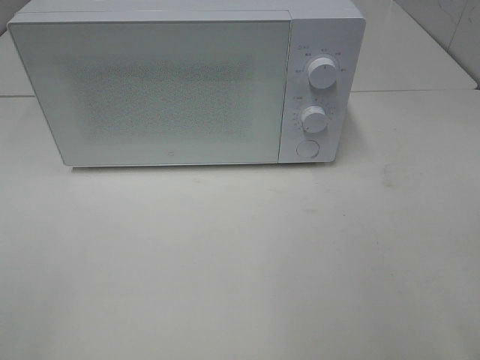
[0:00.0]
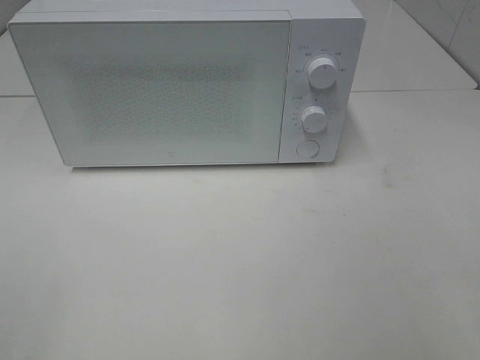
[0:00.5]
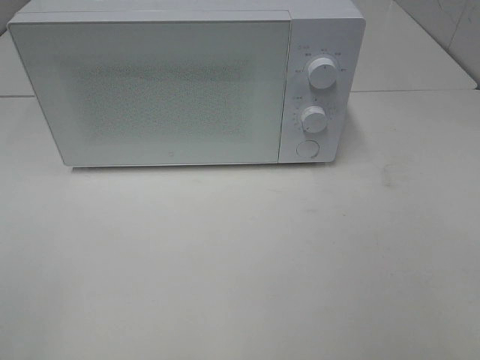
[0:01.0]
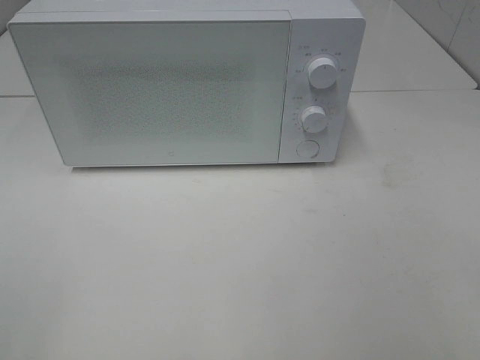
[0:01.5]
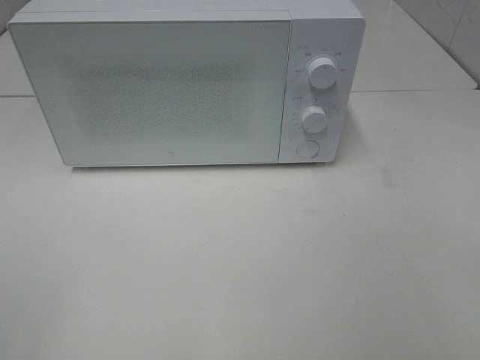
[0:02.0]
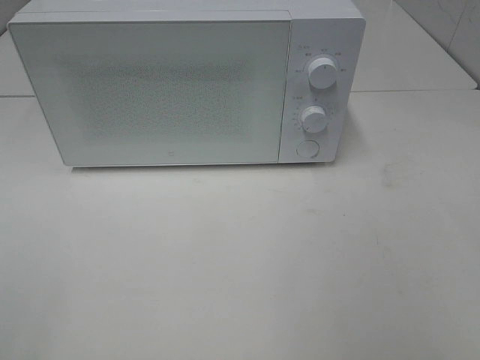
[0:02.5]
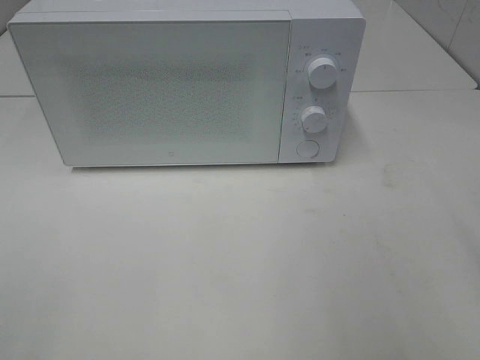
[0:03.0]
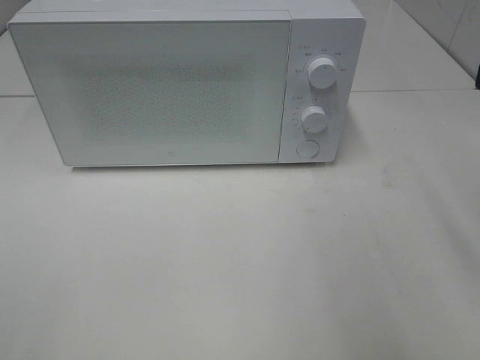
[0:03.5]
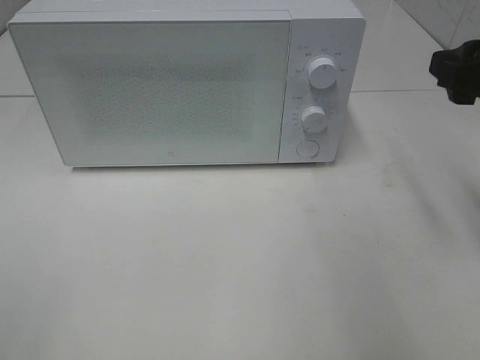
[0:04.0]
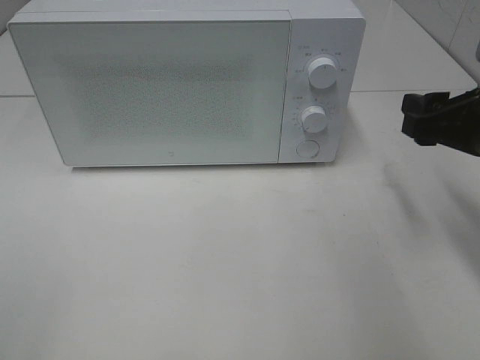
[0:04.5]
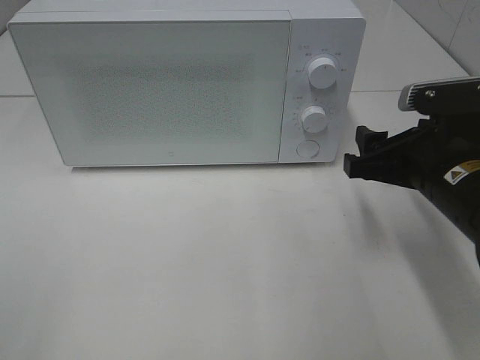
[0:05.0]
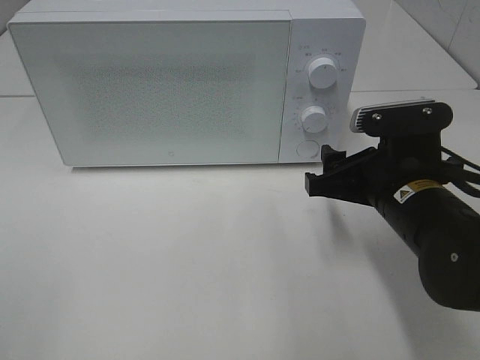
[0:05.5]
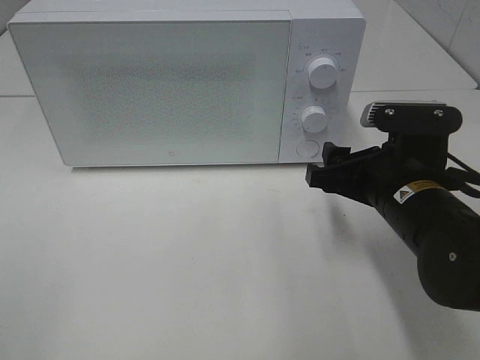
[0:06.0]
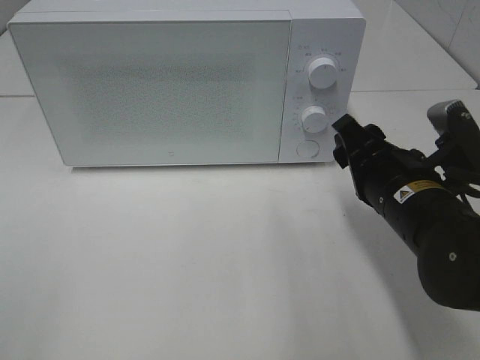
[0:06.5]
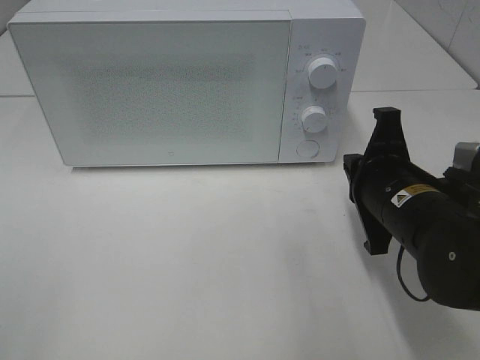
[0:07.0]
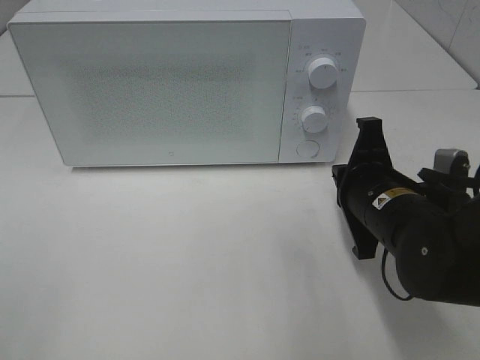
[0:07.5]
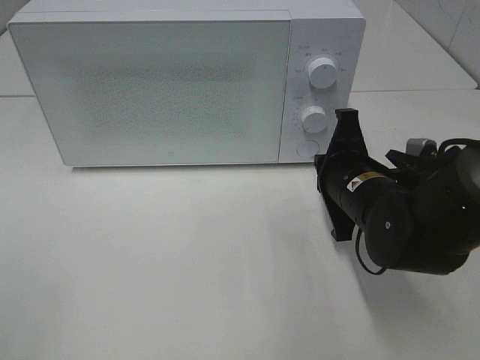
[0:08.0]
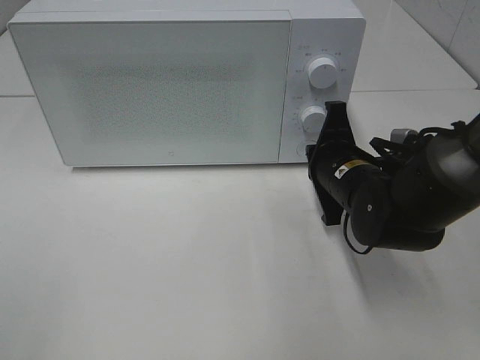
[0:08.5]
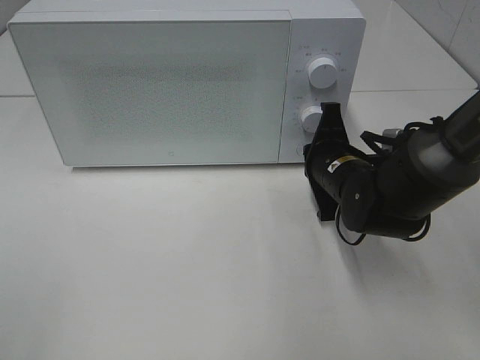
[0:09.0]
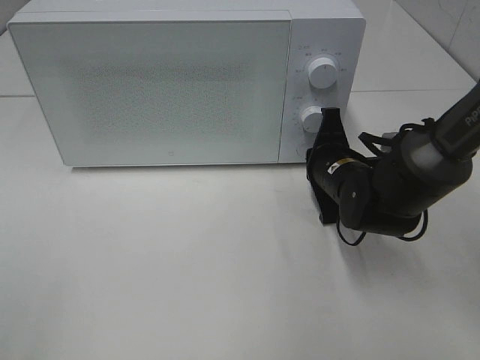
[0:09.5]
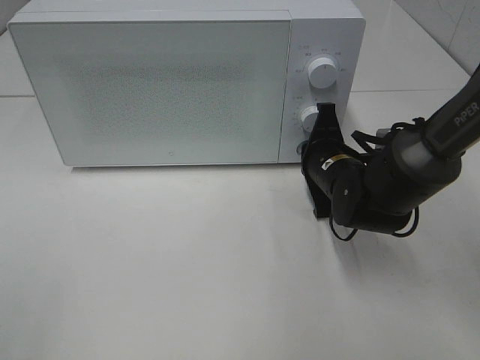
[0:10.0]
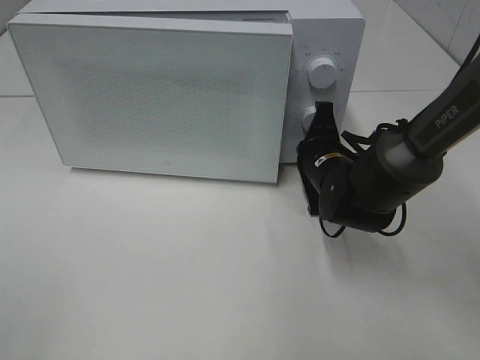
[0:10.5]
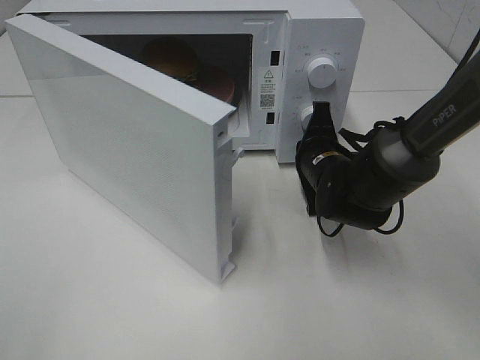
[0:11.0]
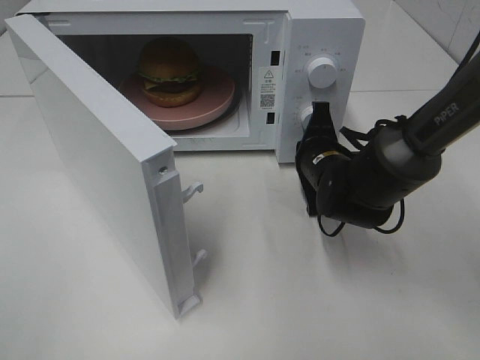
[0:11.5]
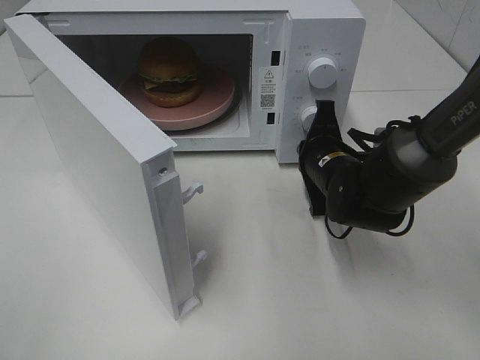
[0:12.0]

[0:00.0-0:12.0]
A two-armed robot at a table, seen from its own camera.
Task of the whole recording: Heat the burger.
0:02.0 to 0:04.0: The right gripper goes about 25 cm forward.
0:04.0 to 0:06.0: The right gripper is displaced downward and to the left by roughly 15 cm.
0:06.0 to 0:08.0: The right gripper shifts by approximately 5 cm, and closes its fingers.
0:08.0 to 0:10.0: The right gripper heads forward, covering roughly 5 cm.

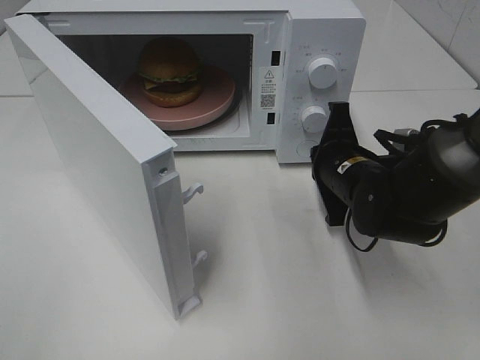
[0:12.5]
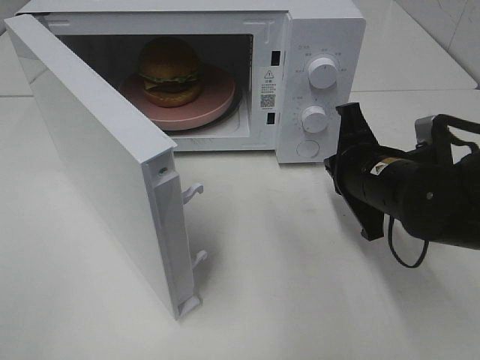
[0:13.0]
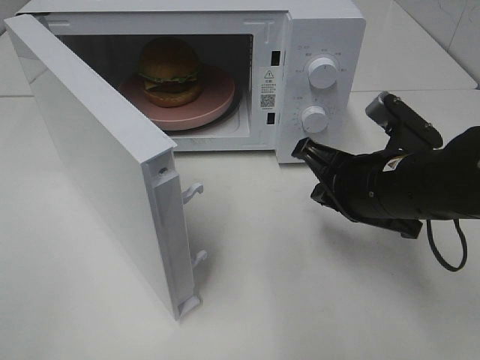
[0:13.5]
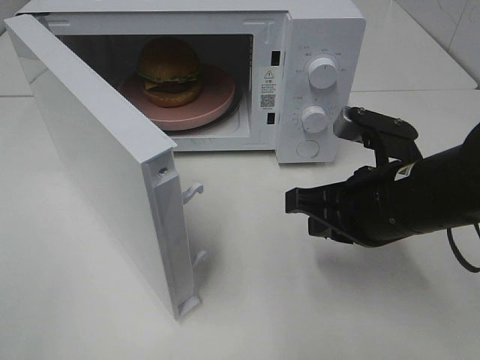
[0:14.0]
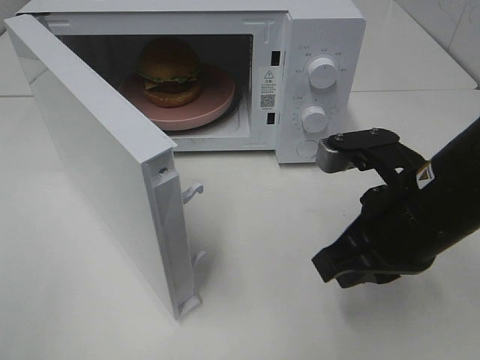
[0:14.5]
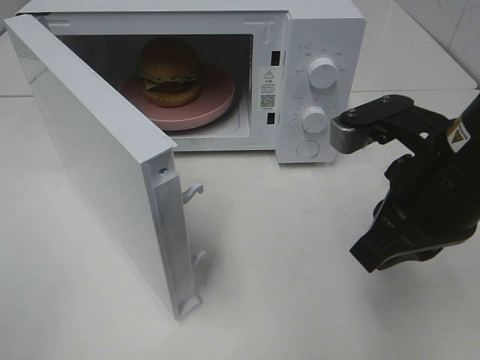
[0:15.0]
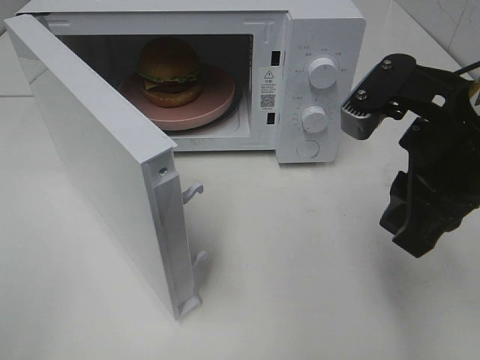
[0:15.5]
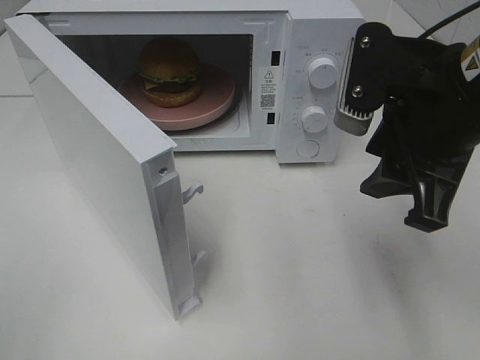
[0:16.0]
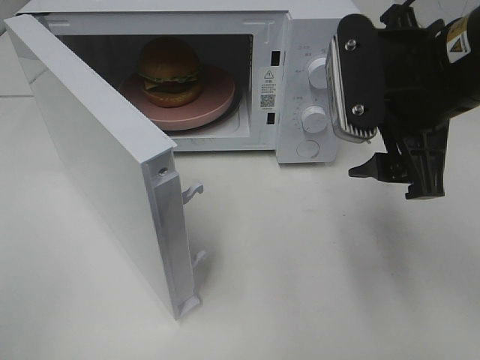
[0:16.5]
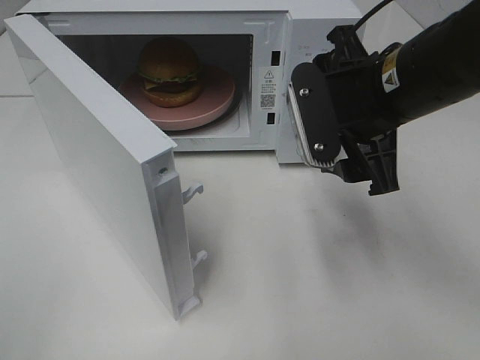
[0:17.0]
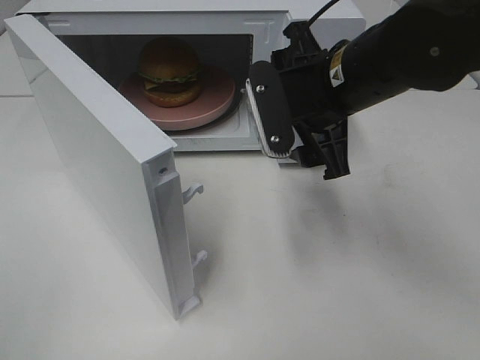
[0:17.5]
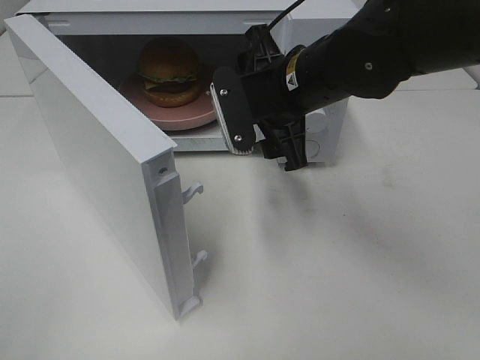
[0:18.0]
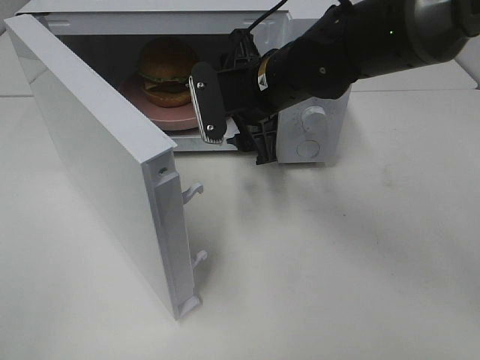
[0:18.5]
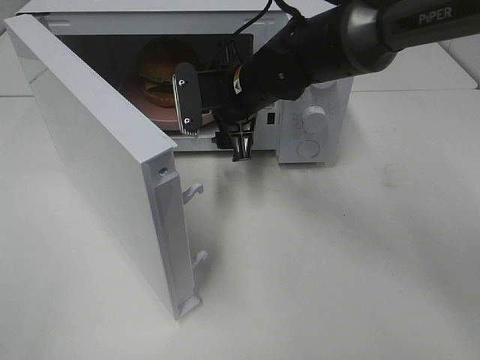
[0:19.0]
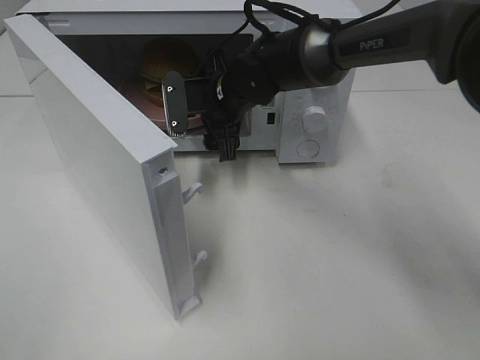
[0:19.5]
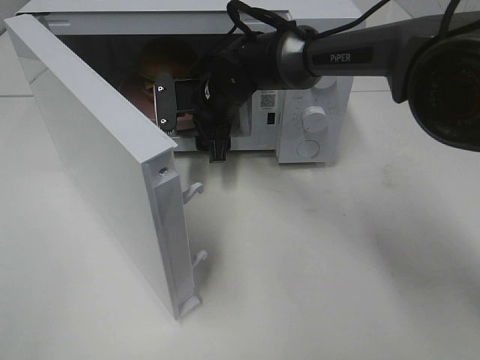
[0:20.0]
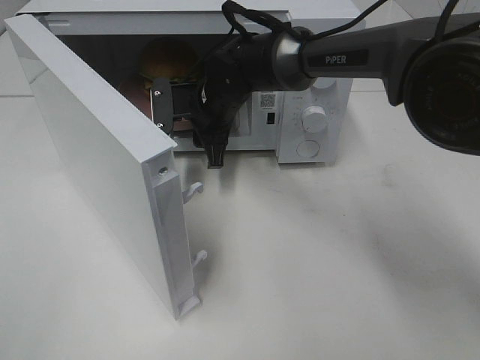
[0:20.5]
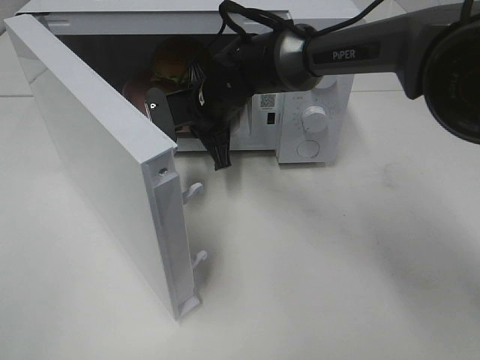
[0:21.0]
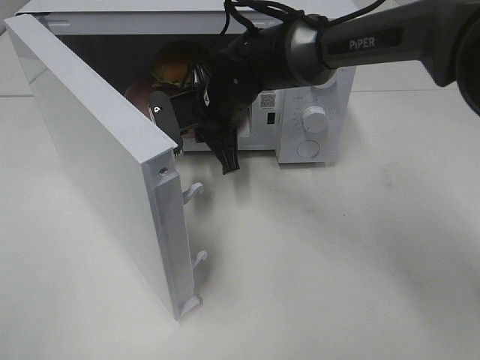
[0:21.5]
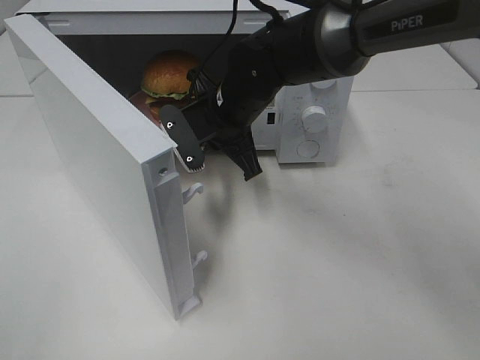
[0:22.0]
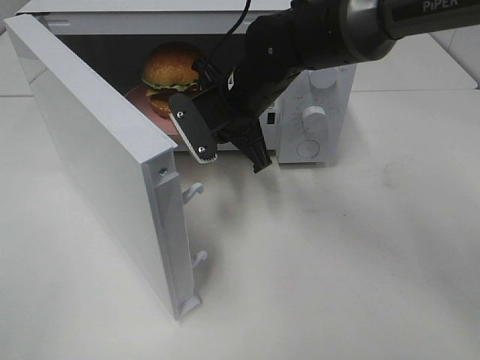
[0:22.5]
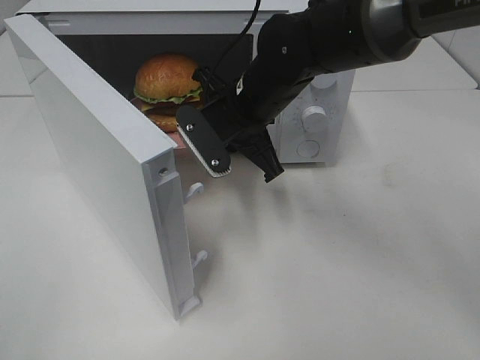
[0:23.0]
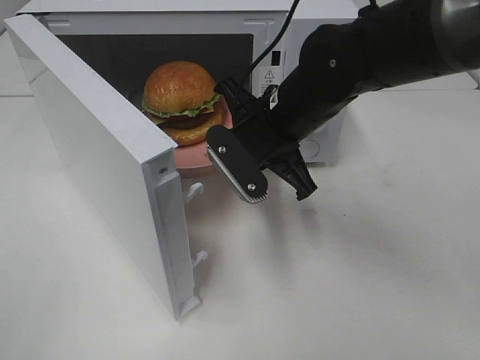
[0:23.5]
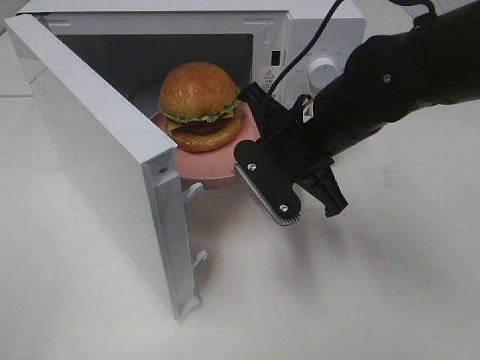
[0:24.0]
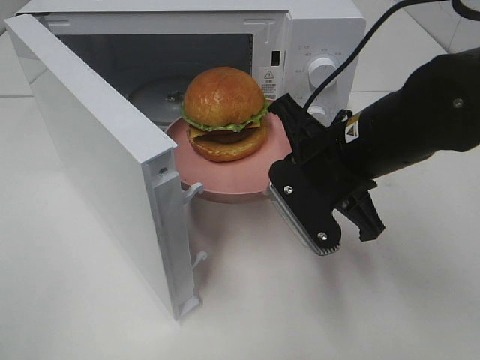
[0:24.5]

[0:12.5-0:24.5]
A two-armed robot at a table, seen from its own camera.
Task of the whole recording: Heat the burger.
Step, 0:12.5 to 0:20.5: Right hand: grab the plate with the hamburger.
0:12.5 to 0:14.5: The right gripper goes roughly 15 cm backward and upward.
0:14.5 to 0:16.5: The right gripper goes approximately 10 cm upward, and opens up.
0:16.5 to 0:18.5: The right gripper goes about 20 cm forward, to the left and downward.
0:18.5 to 0:20.5: The right gripper heads forward, downward and to the left, covering roughly 10 cm, and closes up.
0:20.5 to 0:22.5: The right gripper goes about 5 cm backward, and closes.
0:22.5 to 0:24.5: The right gripper goes approximately 15 cm backward and to the right.

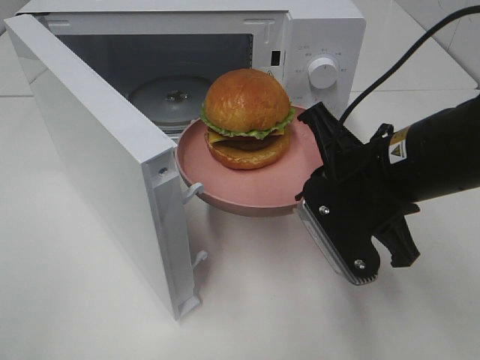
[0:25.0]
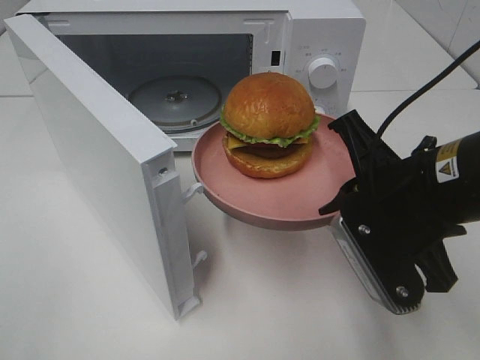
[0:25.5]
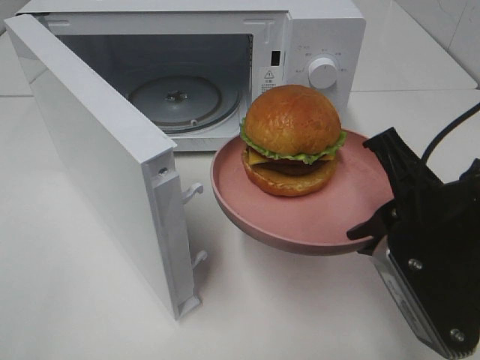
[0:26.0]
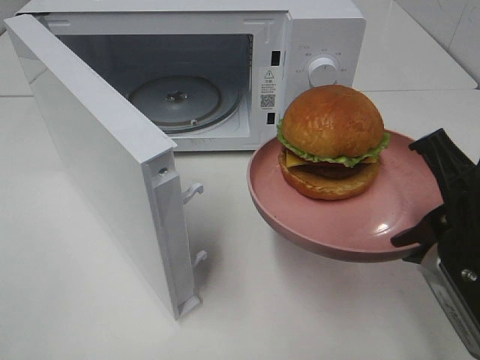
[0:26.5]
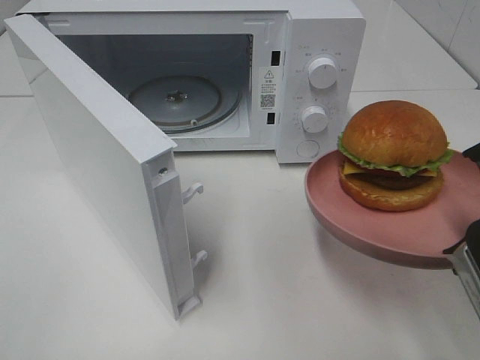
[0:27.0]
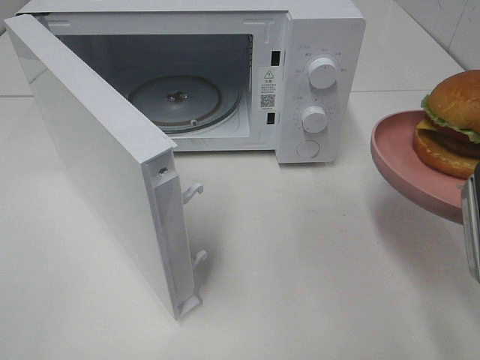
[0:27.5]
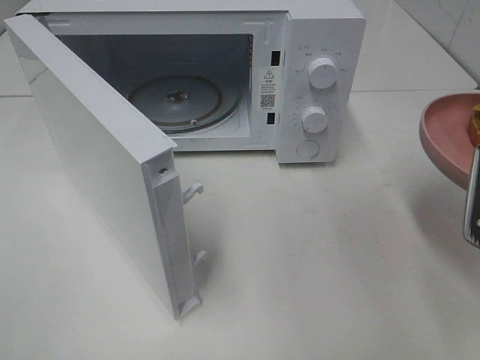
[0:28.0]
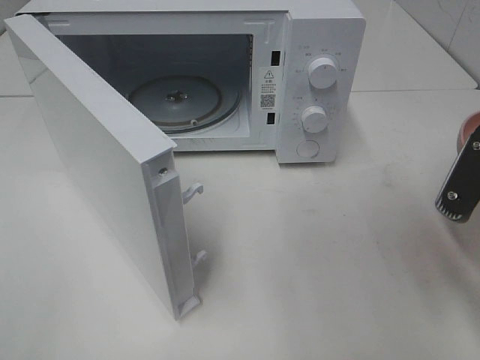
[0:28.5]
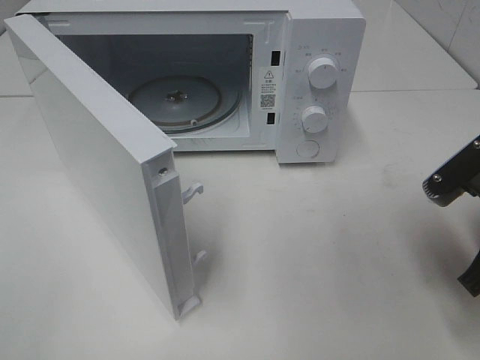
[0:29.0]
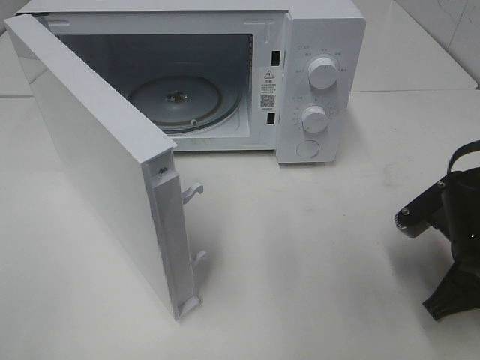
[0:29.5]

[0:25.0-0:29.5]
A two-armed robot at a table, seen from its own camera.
Task of the whole recording: Heat the burger.
0:25.0 to 0:27.0: The right gripper is displaced backward and to the right by about 10 cm.
0:27.0 to 0:29.5: The right gripper moves downward and forward, approximately 15 cm.
